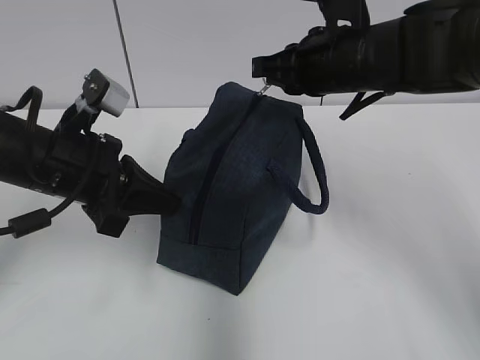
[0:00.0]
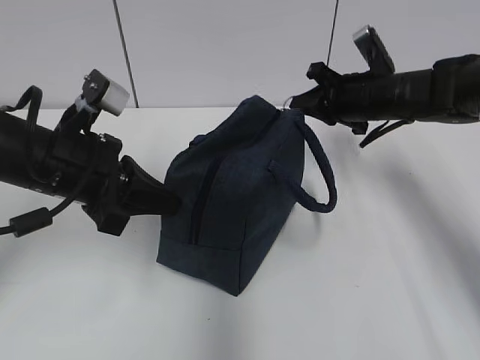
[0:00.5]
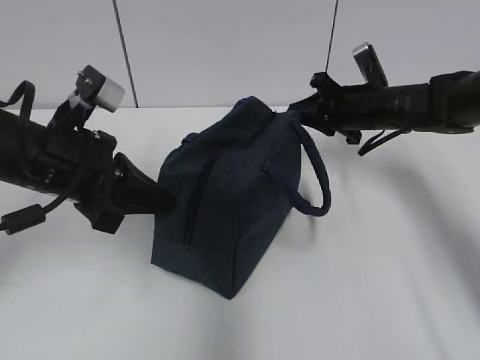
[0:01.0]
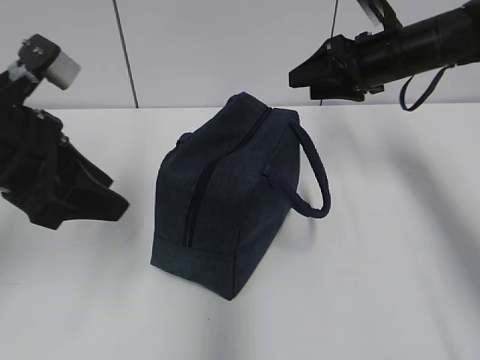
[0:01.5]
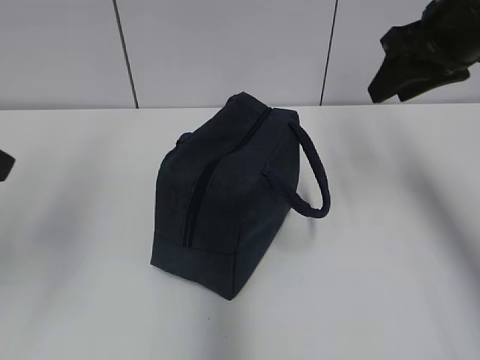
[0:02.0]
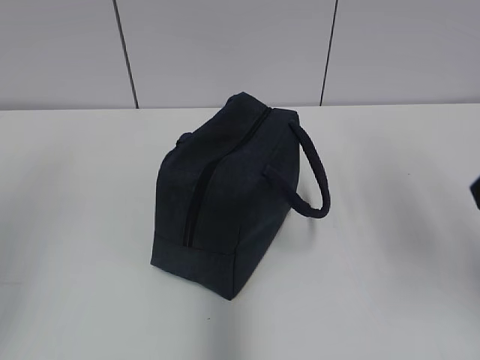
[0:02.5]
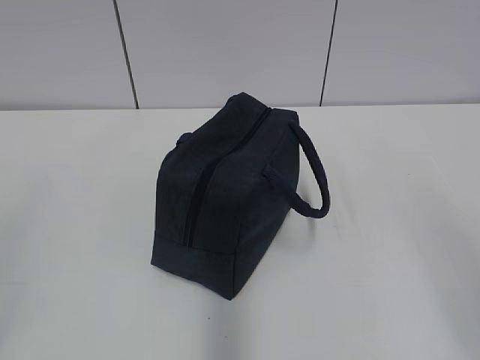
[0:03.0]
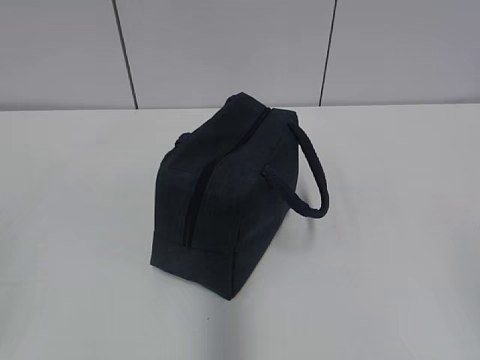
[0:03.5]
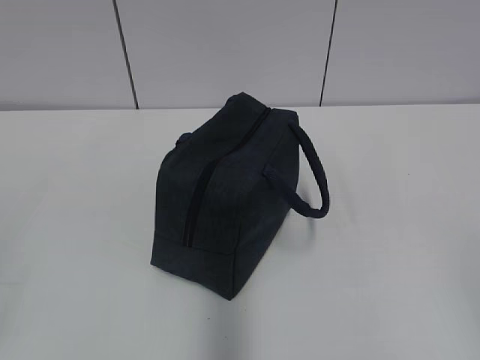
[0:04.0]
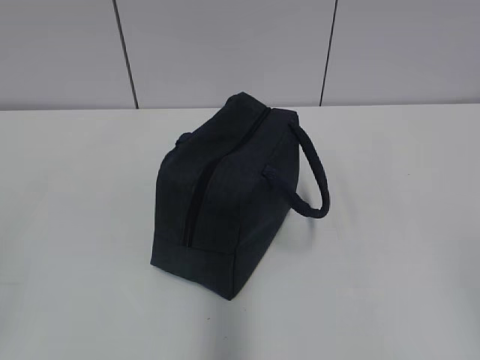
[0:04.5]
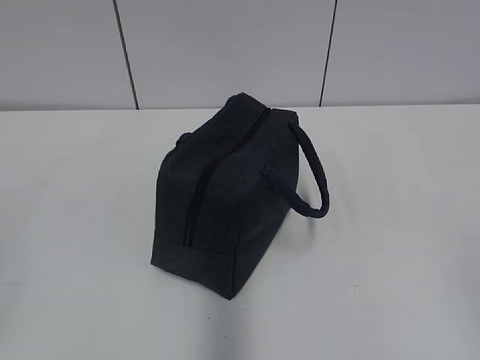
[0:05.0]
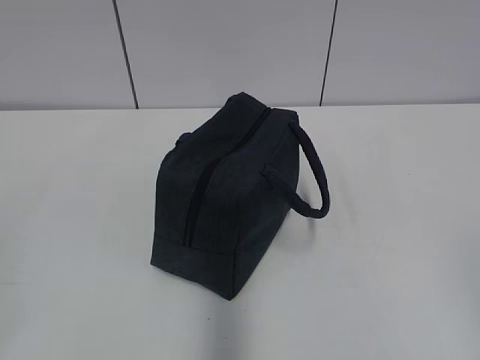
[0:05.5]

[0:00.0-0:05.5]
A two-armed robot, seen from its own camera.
0:00.0 to 0:02.0: The left gripper travels upward, backward and to the left by roughly 15 cm, and opens up, while the right gripper goes about 10 cm to the right and upward, and opens up.
0:02.0 to 0:03.5: The right gripper moves backward, about 35 cm, while the left gripper goes roughly 20 cm backward.

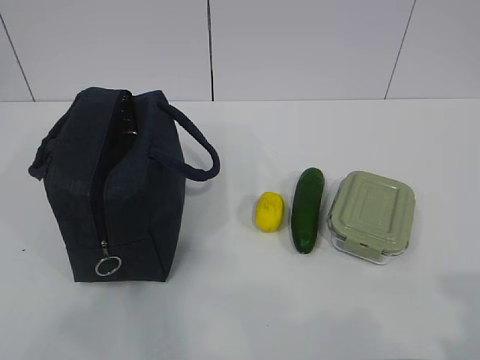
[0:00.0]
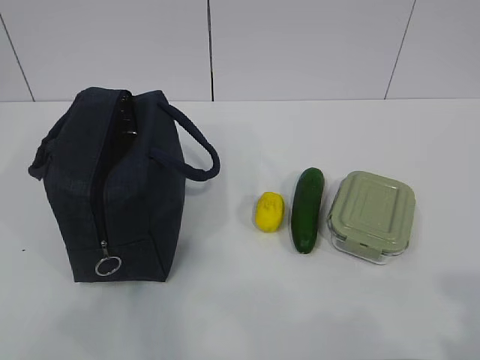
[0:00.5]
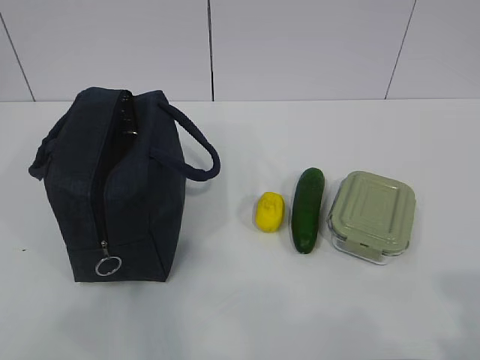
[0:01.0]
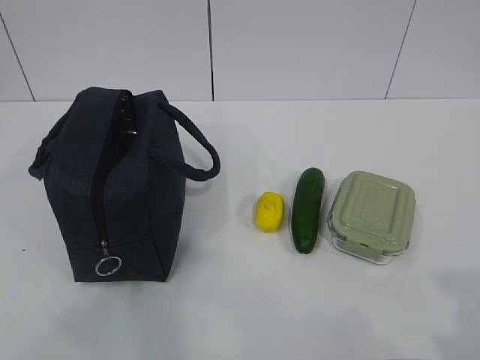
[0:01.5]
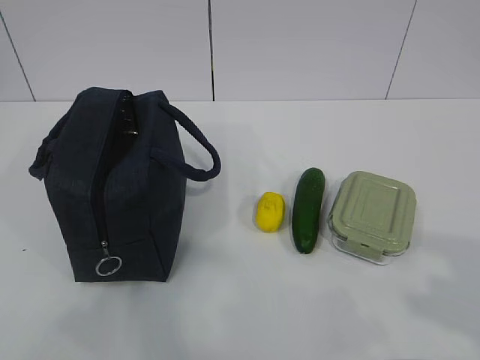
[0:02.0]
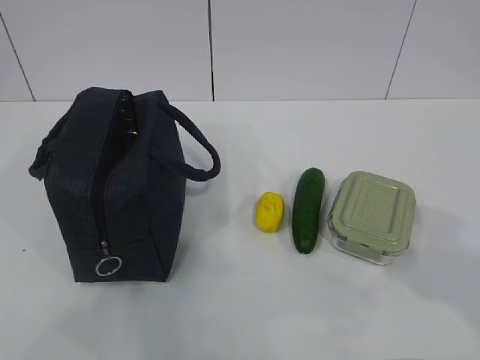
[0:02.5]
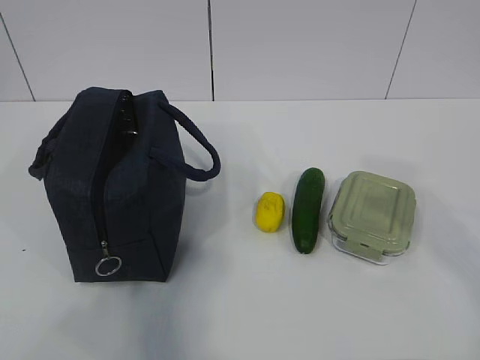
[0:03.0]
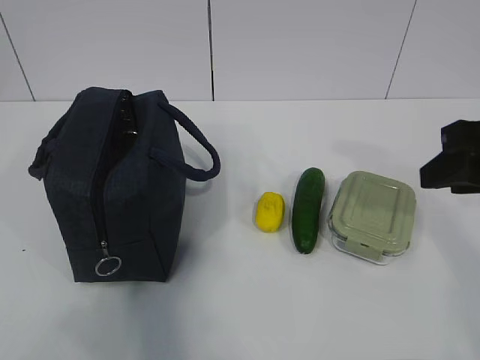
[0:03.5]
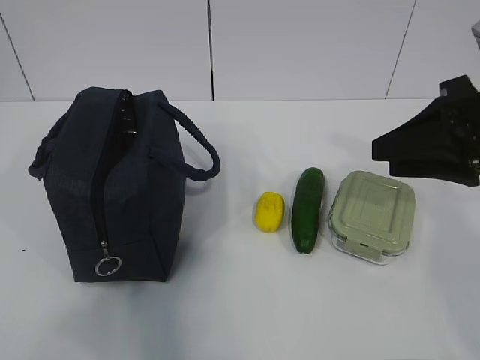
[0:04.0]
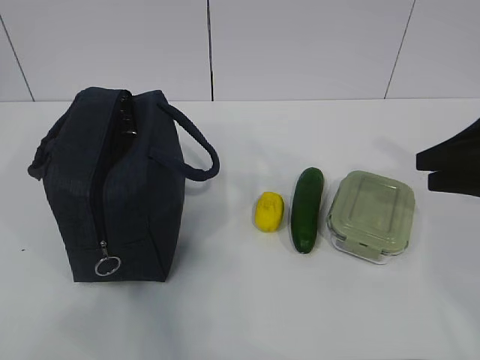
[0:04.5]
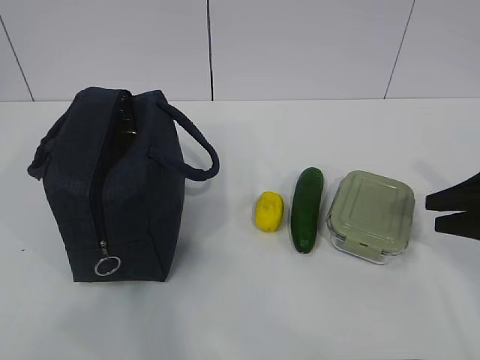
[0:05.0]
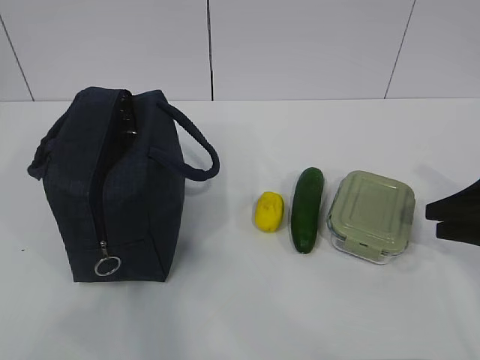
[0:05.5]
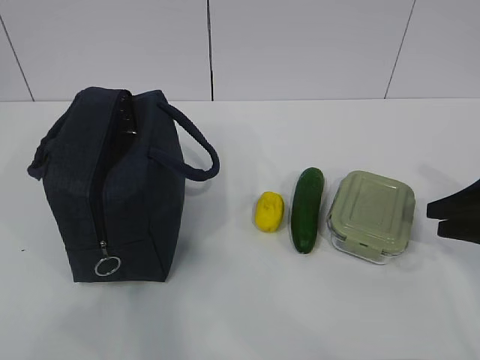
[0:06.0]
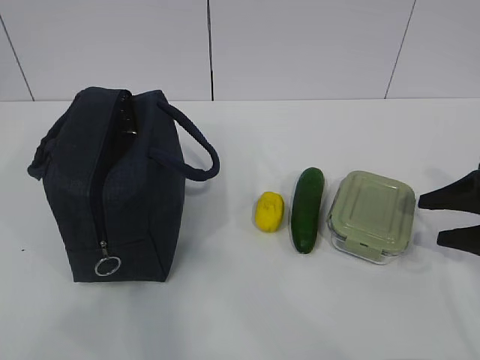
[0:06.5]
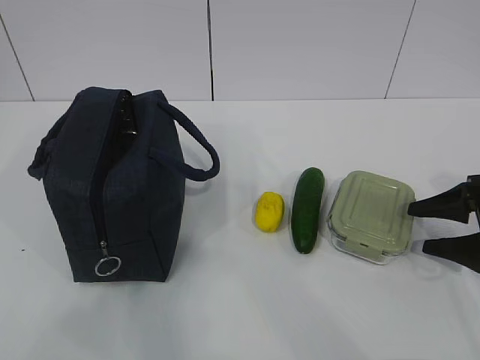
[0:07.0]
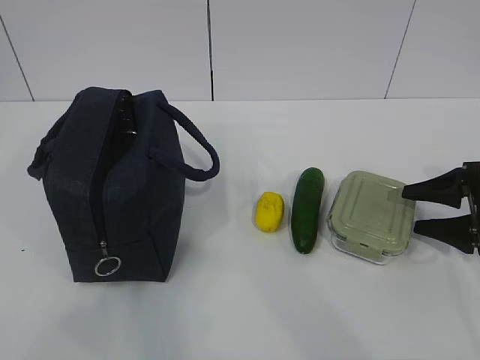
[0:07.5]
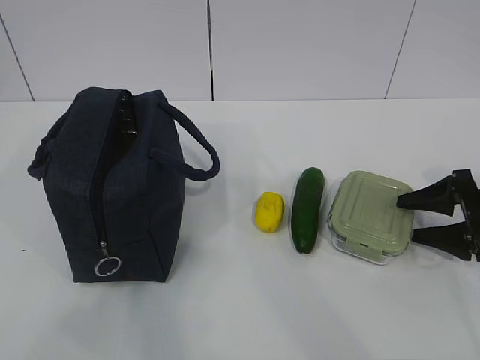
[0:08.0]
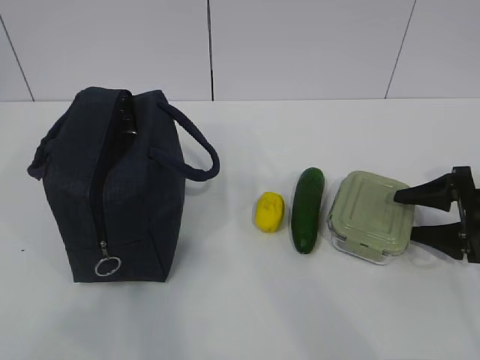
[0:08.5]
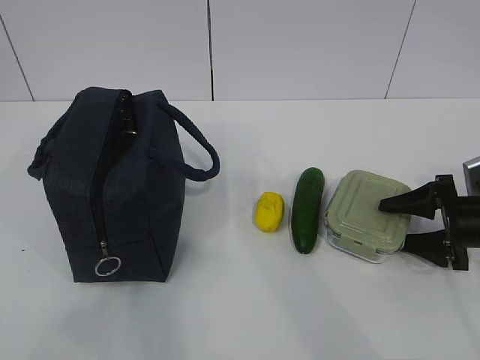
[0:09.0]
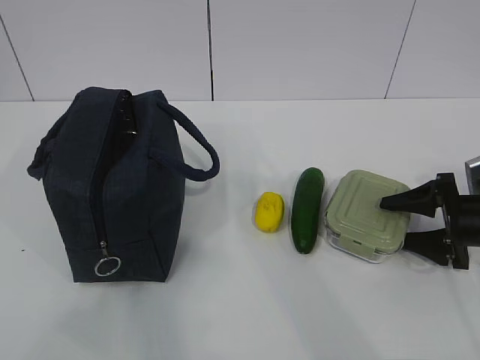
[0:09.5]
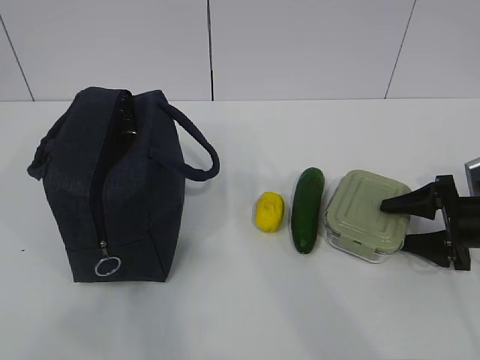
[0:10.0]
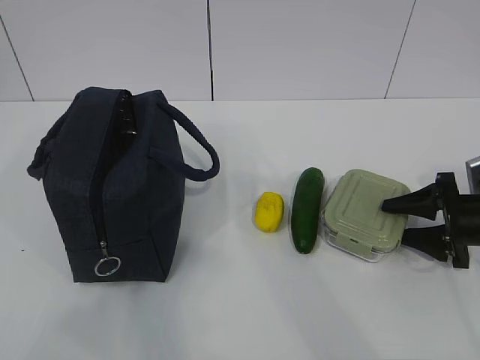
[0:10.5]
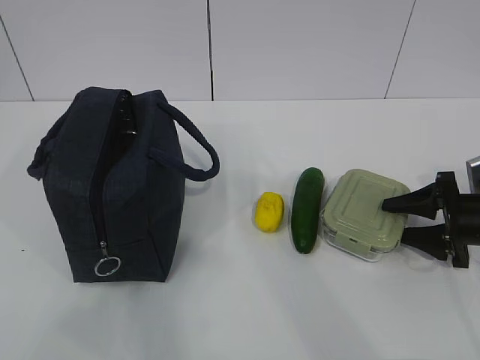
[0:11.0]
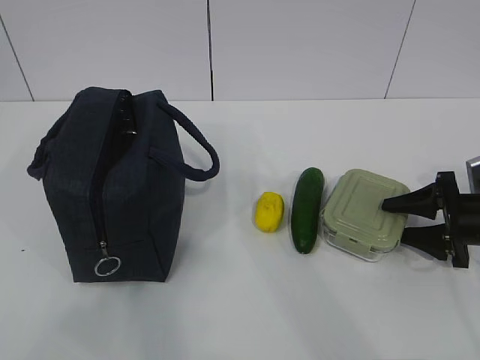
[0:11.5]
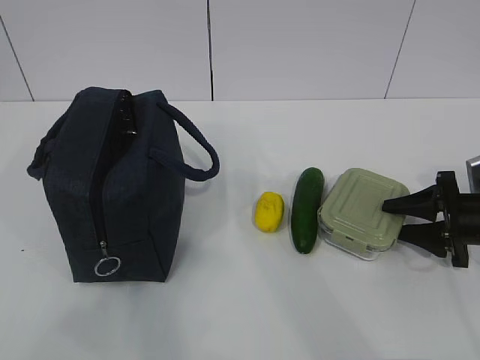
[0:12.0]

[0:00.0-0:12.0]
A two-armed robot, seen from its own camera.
0:02.0 to 0:04.0: The right gripper shifts approximately 20 cm forward.
0:04.0 to 0:06.0: The right gripper heads downward and to the right, covering some 15 cm.
0:06.0 to 0:08.0: The right gripper shifts roughly 5 cm downward, and opens up.
0:08.0 to 0:10.0: The grippers make only small movements.
0:10.0 to 0:12.0: Neither gripper changes place.

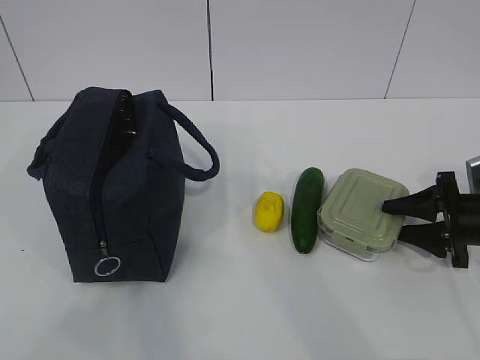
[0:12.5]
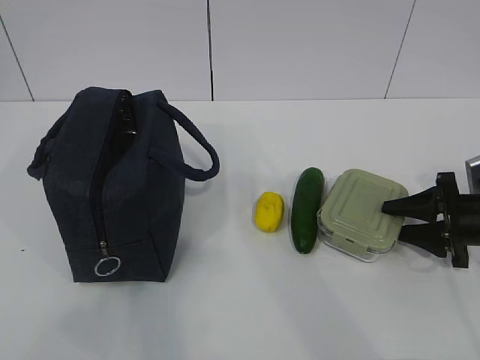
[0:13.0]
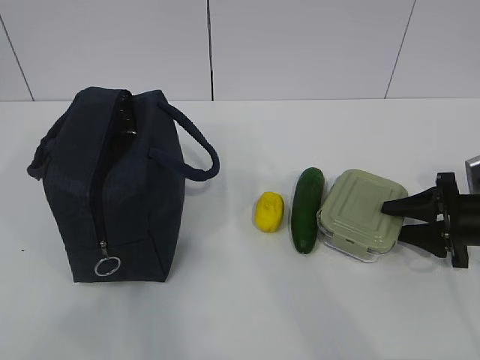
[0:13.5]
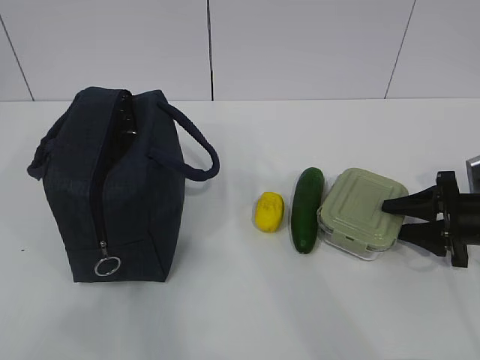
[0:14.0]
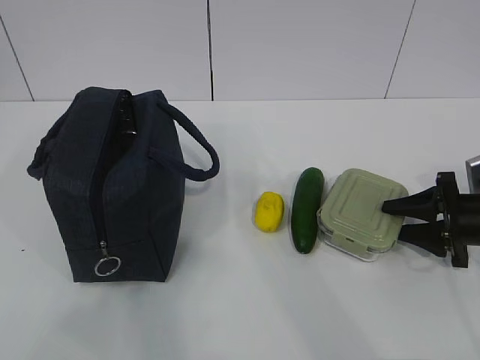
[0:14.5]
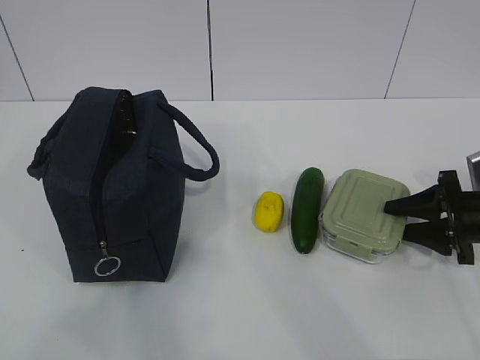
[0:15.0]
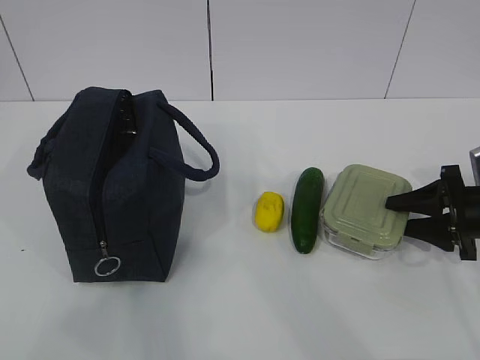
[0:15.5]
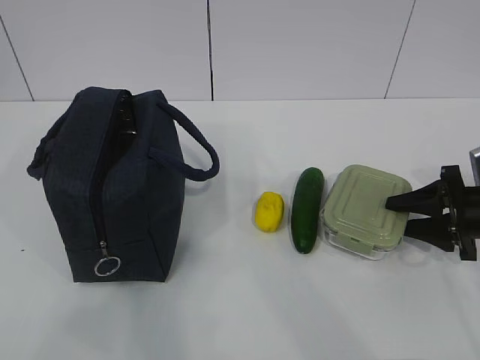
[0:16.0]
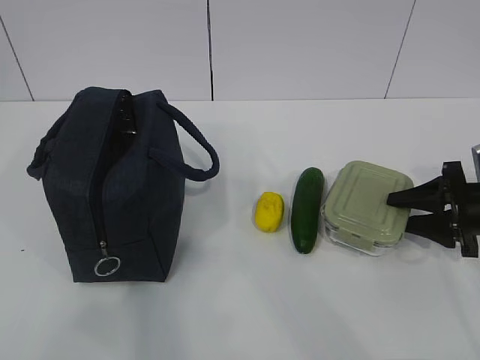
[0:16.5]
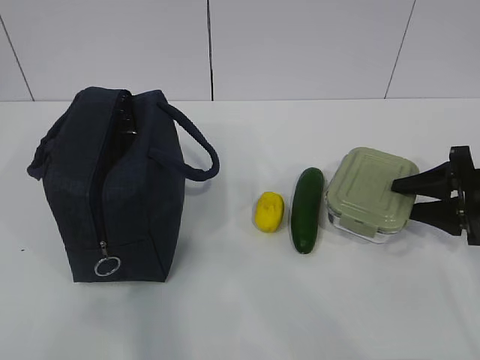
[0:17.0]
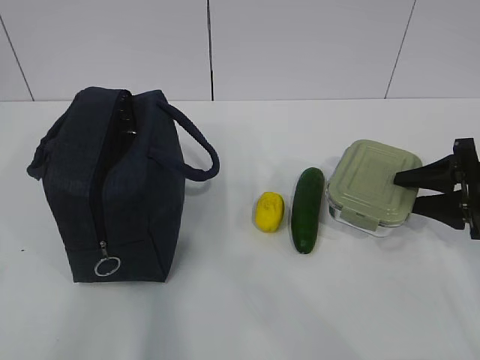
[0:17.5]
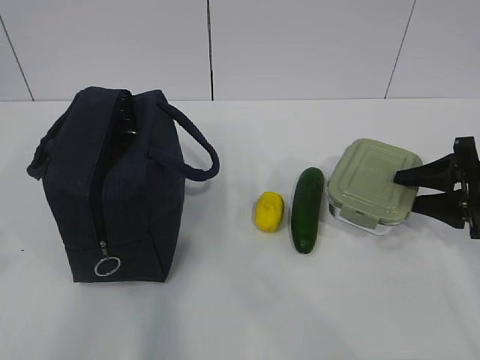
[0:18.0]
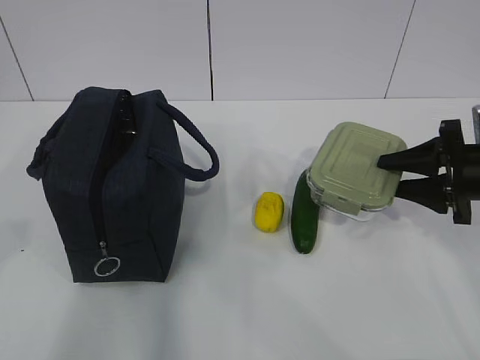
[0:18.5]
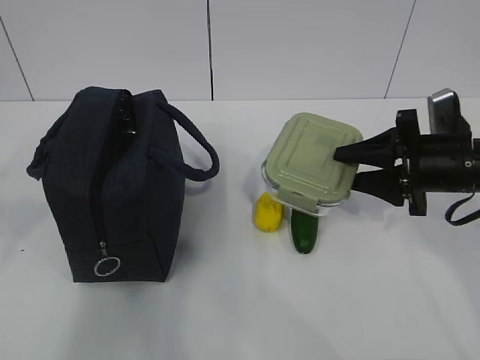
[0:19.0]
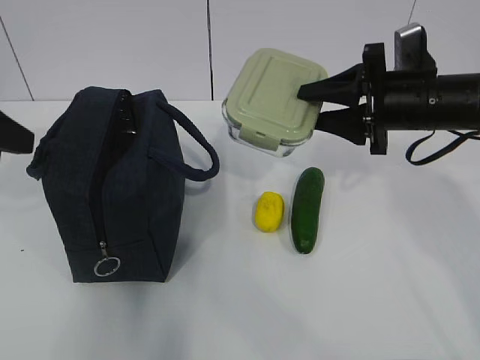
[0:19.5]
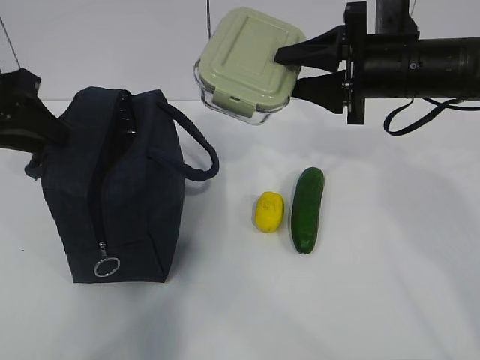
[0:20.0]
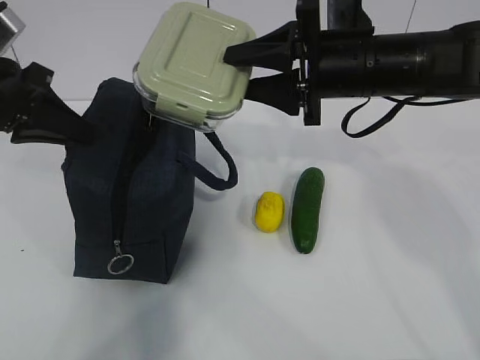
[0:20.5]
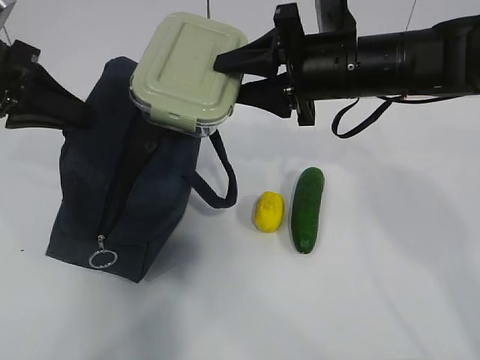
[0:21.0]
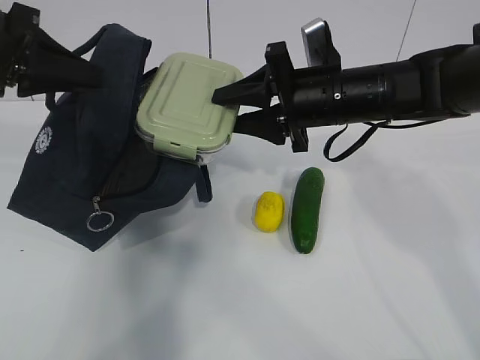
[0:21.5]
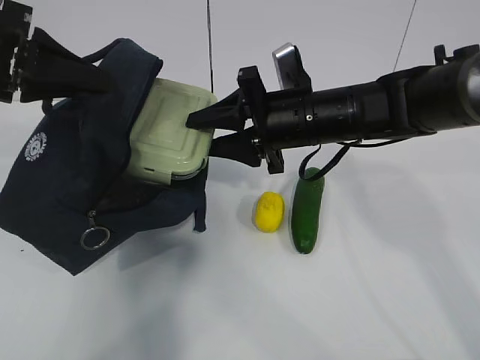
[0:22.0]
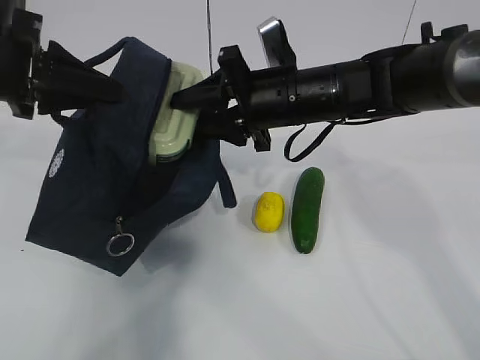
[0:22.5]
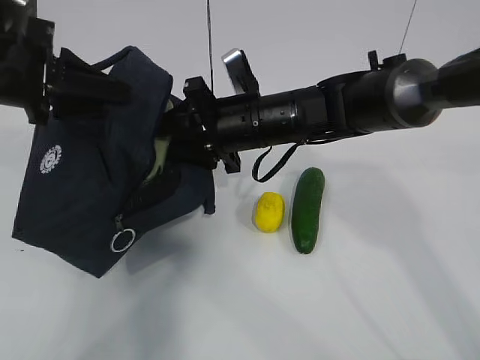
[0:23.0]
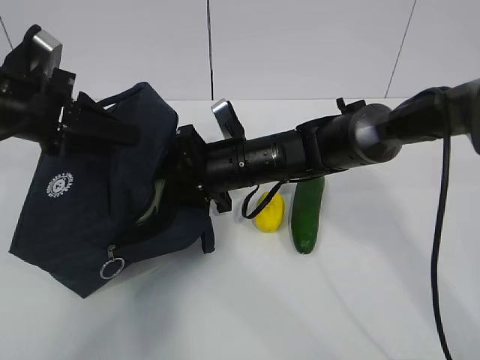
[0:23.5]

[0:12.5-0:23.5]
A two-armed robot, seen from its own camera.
Step, 0:12.5 to 0:17.0: Grab the lunch bag with your left hand.
Step, 0:17.5 to 0:22.0: Place it into the bag with your right hand.
0:12.5 to 0:14.5: Both grippers stay put.
0:14.5 to 0:16.0: The grippers move only a little.
0:18.0 to 0:20.0: The right gripper shifts approximately 20 cm to the left and upward. Meanwhile the left gripper travels forward by approximately 25 cm.
0:20.0 to 0:21.5: The left gripper closes up. The right gripper moves to the left, roughly 5 cm.
0:21.5 to 0:23.5: The right gripper shifts some 15 cm to the left and downward, while the left gripper goes about 5 cm downward.
